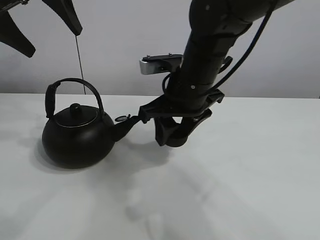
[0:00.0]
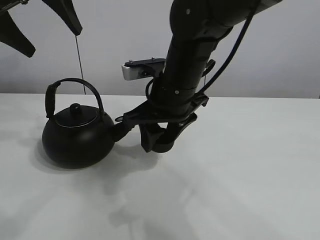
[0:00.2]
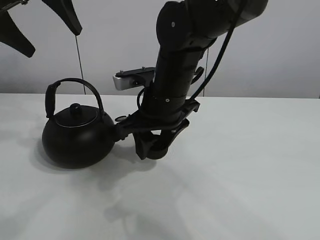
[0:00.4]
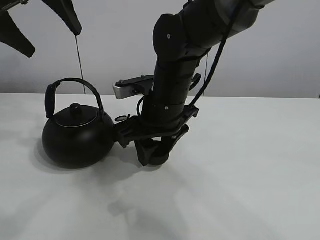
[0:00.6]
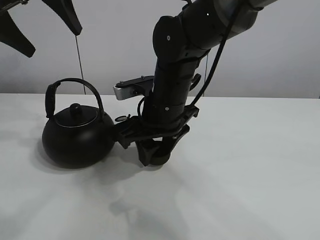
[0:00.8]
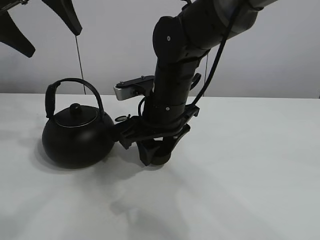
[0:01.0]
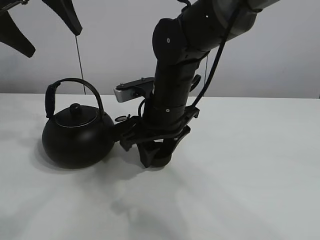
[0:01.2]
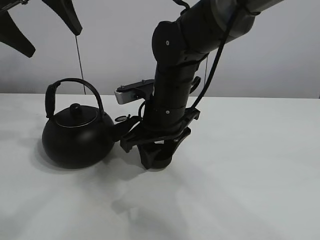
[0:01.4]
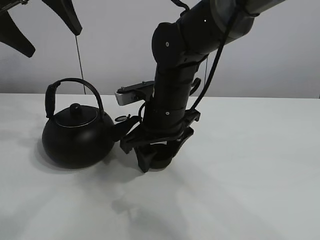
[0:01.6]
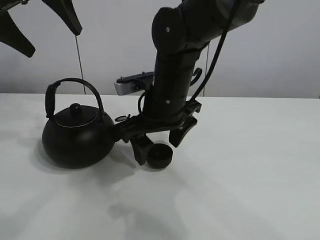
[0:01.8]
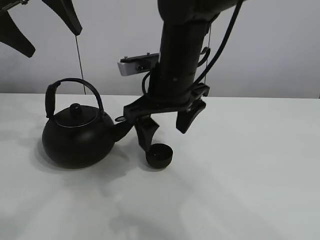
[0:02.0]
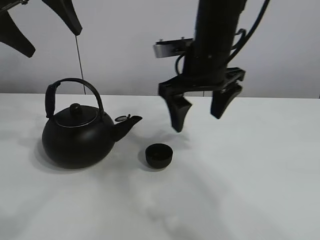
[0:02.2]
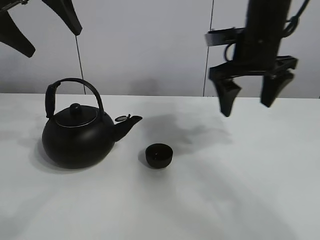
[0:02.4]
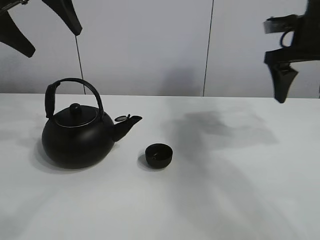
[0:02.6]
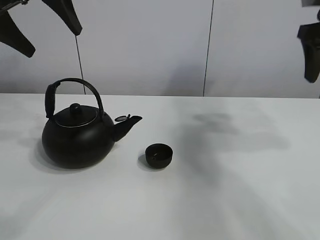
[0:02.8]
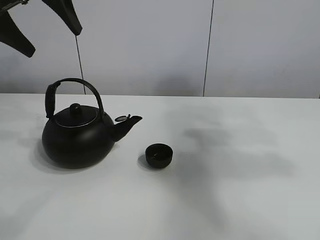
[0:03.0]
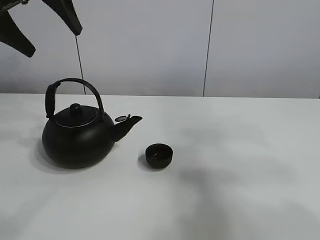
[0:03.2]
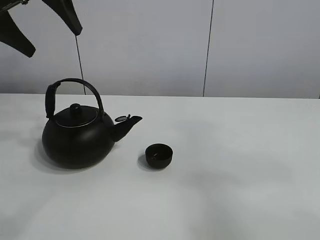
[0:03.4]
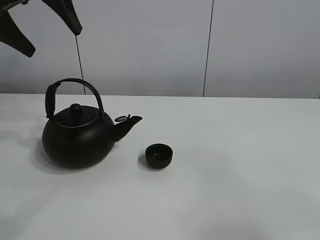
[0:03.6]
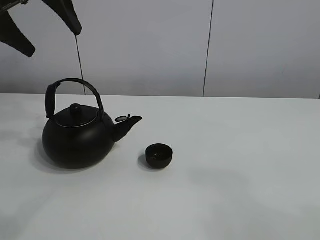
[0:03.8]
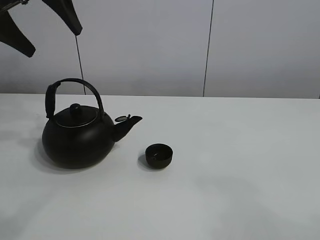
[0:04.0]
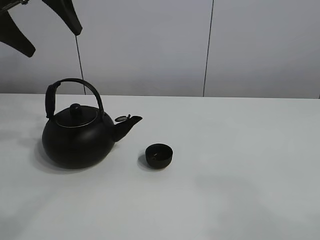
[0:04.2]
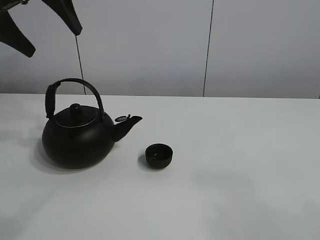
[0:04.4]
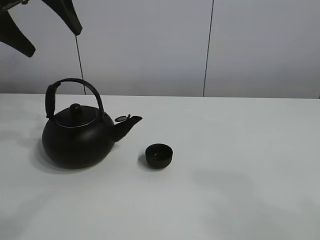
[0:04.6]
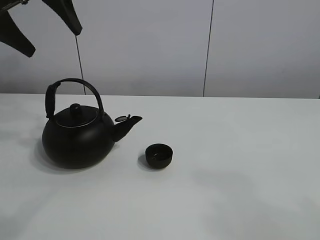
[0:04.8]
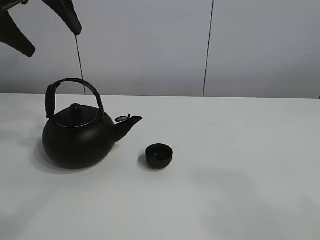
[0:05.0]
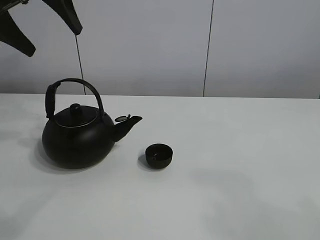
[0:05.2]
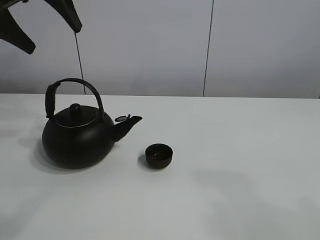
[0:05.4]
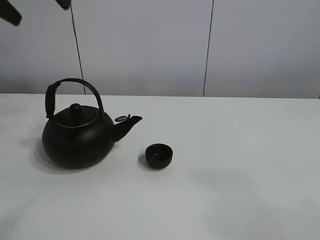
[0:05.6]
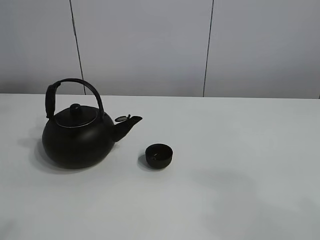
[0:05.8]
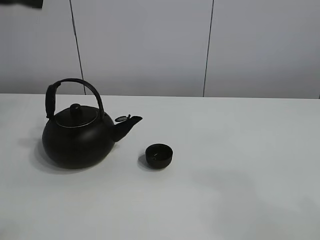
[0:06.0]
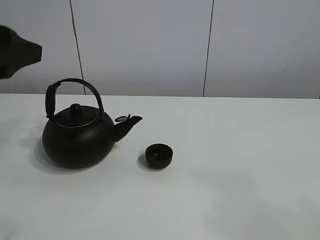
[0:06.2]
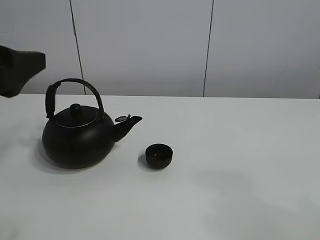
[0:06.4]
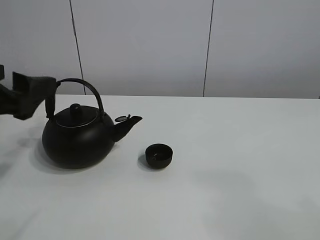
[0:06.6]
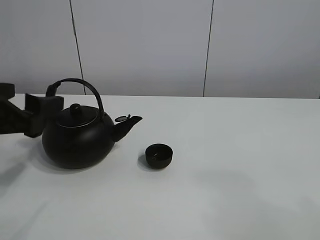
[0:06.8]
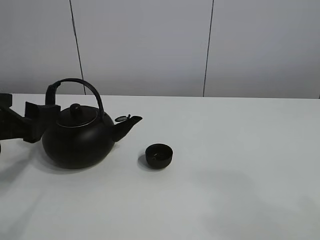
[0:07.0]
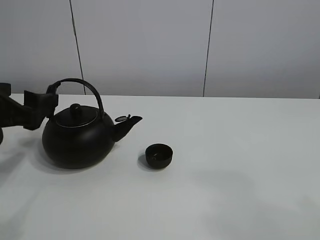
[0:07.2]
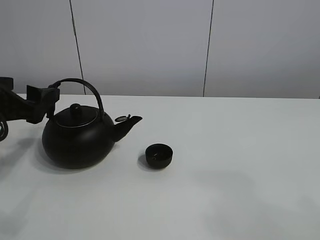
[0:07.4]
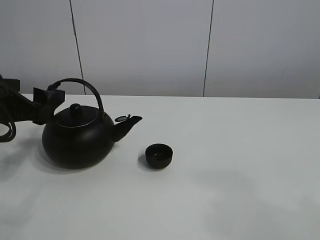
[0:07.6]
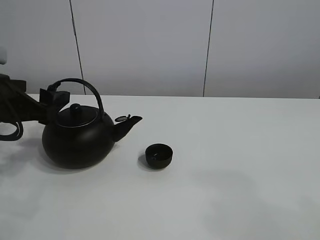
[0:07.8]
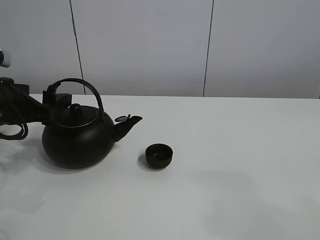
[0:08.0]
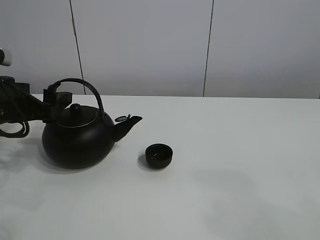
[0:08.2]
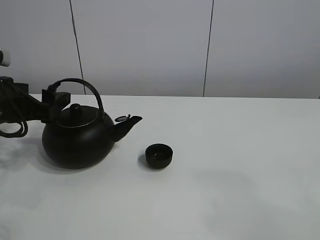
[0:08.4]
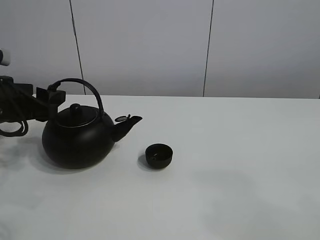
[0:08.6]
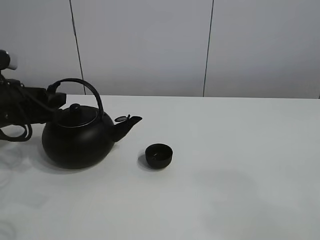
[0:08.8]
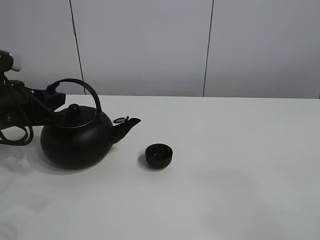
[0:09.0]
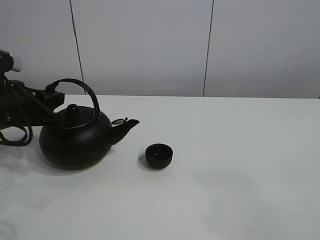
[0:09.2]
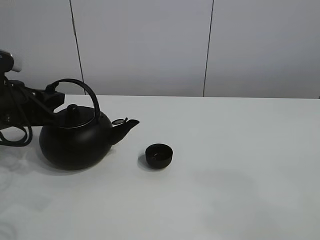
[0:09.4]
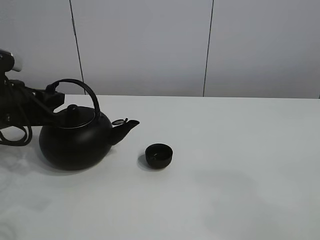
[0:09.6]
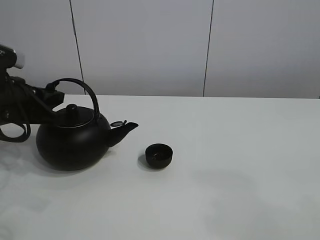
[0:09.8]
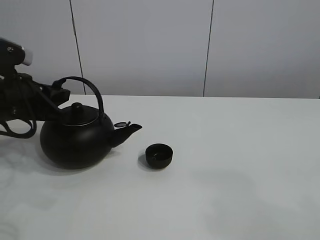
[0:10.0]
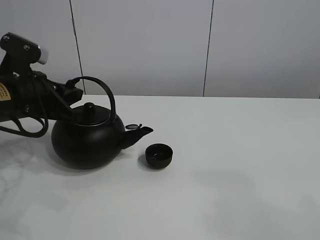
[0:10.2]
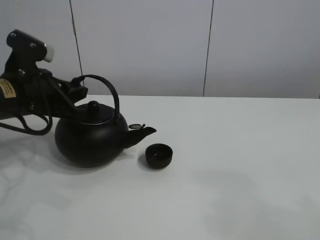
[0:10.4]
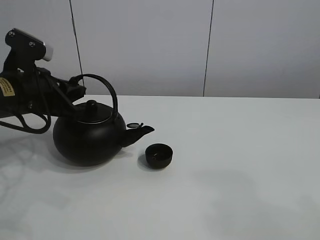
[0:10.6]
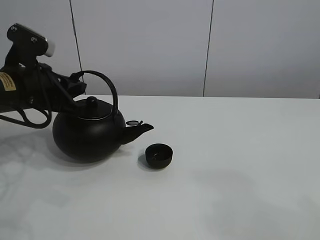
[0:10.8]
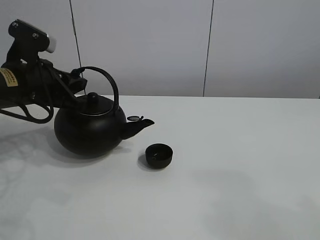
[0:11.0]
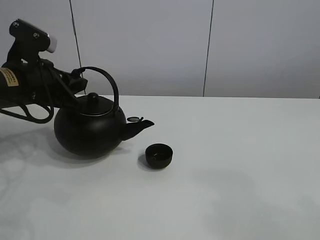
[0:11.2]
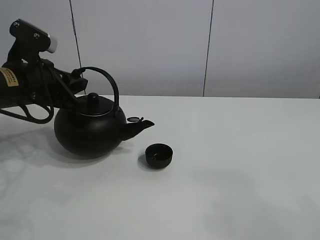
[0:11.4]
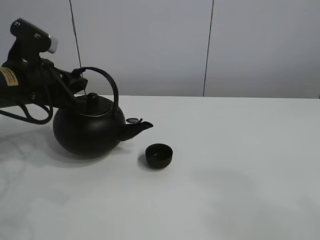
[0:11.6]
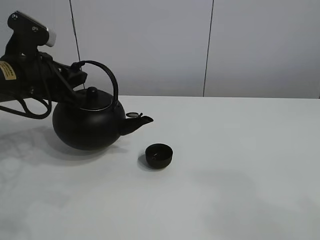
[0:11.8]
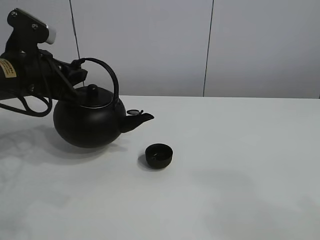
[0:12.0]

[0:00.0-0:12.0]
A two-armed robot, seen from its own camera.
Task of the whole recording: pour tea into the teacup.
Step, 0:00.0 to 0:01.4: Place the teacup in the center of view with the right gripper.
Step, 0:01.6 to 0:10.4: Pick up the teapot with the left gripper.
0:00.0 to 0:01.6: The right gripper ends up approximately 5 cm from where it was, and opens up.
0:01.6 to 0:03.0: The right gripper moves to the right and upward, roughly 35 cm, and opens.
0:03.0 to 0:04.4: The right gripper moves backward, approximately 30 cm.
0:04.4 to 0:06.0: The left gripper is displaced backward by approximately 10 cm.
0:06.0 to 0:07.6: The left gripper is displaced downward by roughly 20 cm.
0:07.6 to 0:09.0: The left gripper closes its fingers.
0:09.0 to 0:10.4: The grippers make only small movements.
0:10.4 to 0:12.0: There are only small adjustments of the grippers.

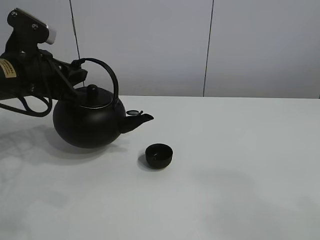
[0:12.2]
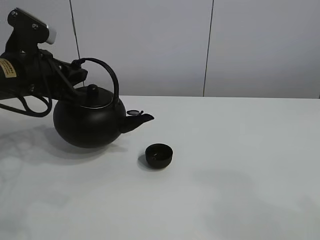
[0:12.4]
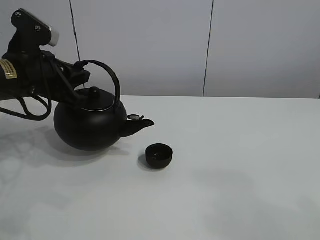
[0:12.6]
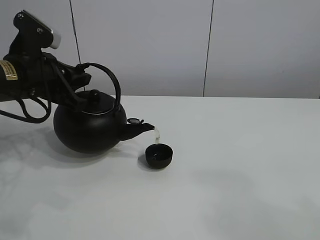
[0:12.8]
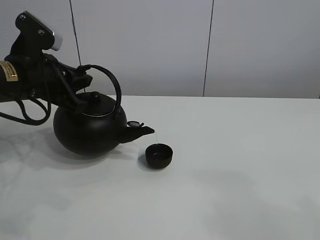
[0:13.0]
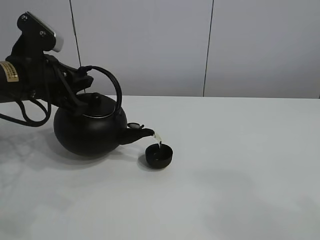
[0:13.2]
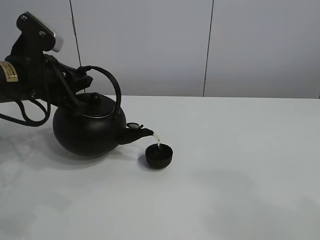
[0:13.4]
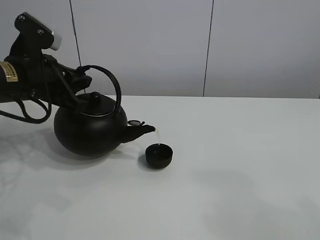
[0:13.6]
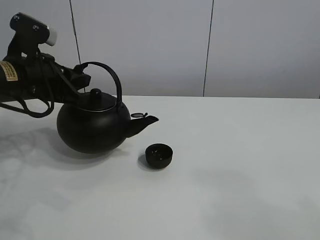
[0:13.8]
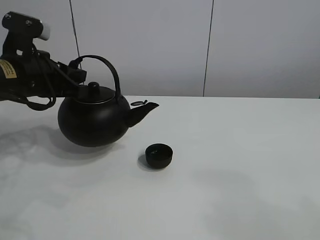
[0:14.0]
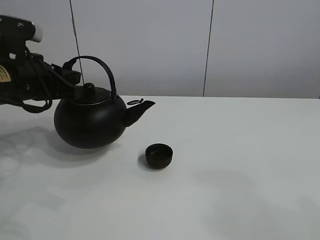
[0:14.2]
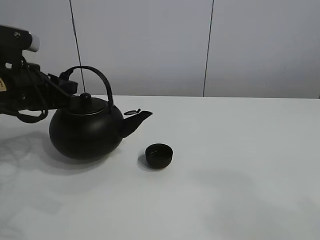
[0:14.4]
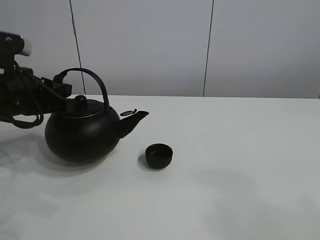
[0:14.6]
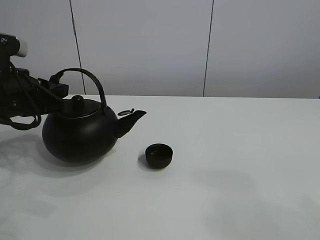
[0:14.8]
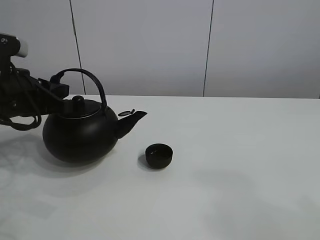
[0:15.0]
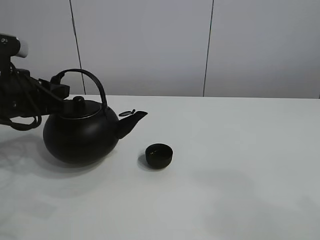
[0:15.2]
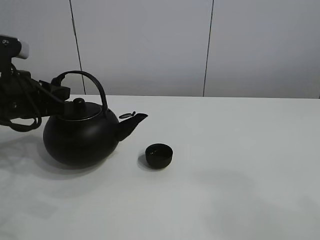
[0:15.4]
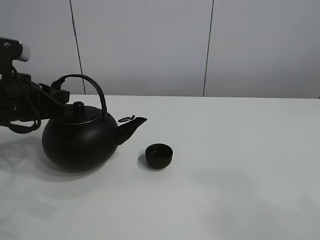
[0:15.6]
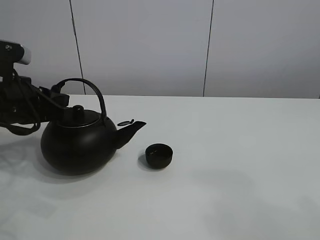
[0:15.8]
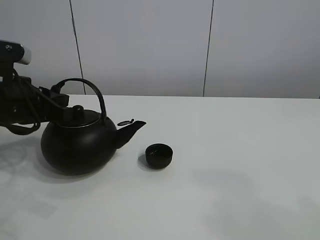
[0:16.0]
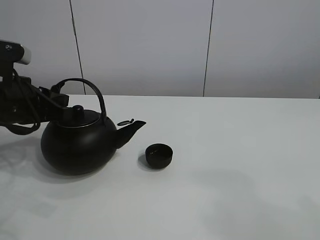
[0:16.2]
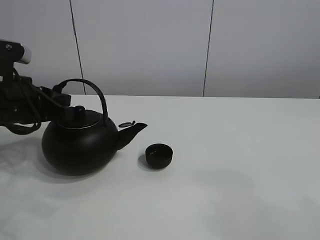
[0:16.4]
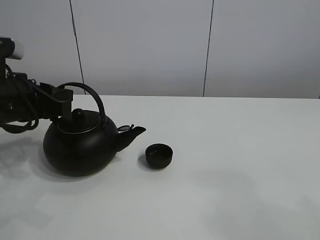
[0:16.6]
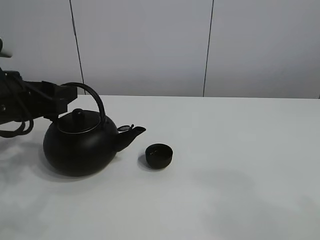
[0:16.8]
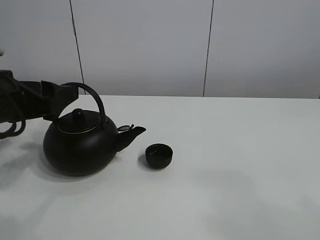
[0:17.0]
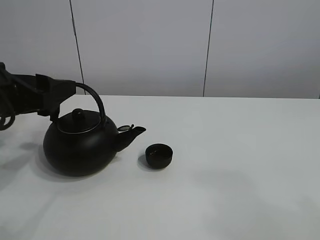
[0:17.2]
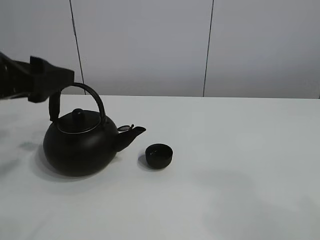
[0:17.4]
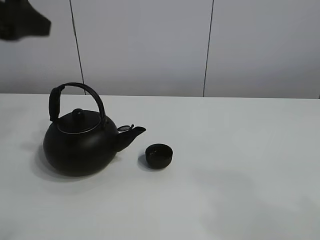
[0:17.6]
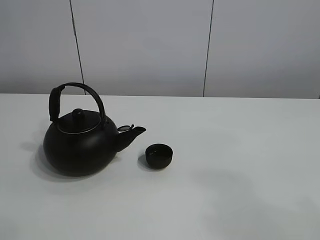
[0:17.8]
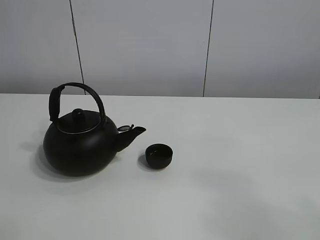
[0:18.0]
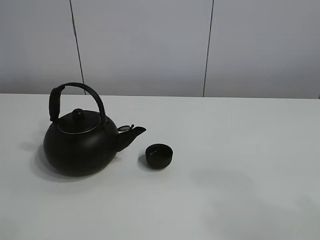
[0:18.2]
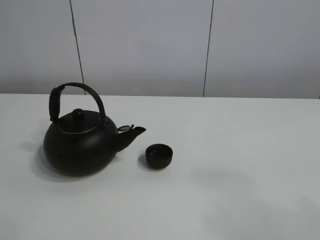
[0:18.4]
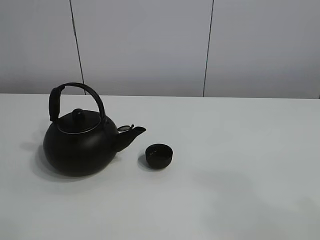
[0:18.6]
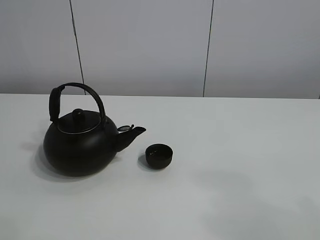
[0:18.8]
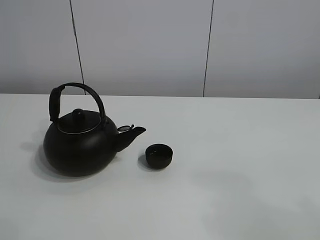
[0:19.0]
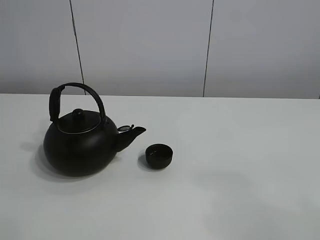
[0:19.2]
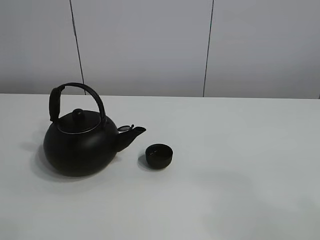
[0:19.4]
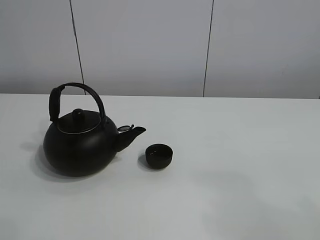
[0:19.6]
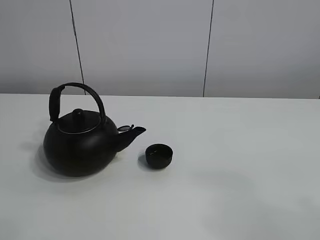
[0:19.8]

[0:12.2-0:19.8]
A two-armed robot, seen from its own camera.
Task of the whole recording: pour tea into the teacup.
0:12.2 to 0:15.2: The grippers make only small movements.
0:15.2 to 0:16.8: The left gripper opens.
0:16.8 to 0:18.2: The left gripper shifts some 35 cm upward and backward, and opens its fingers.
